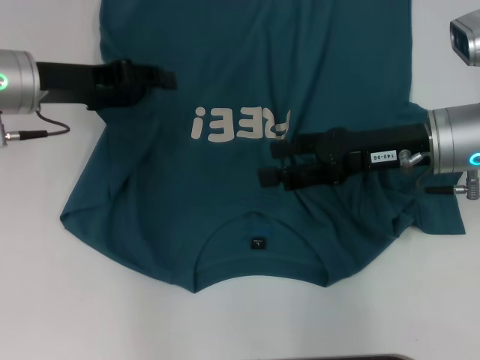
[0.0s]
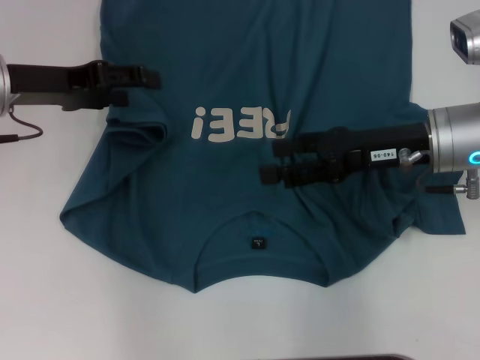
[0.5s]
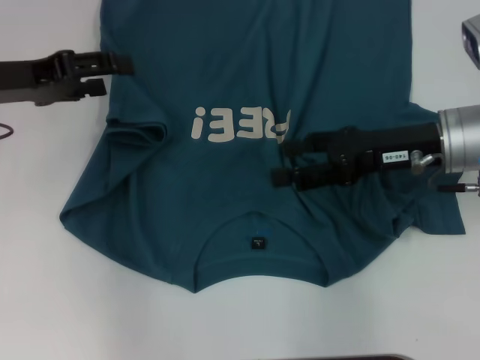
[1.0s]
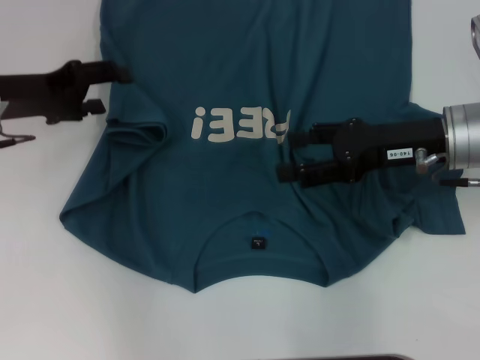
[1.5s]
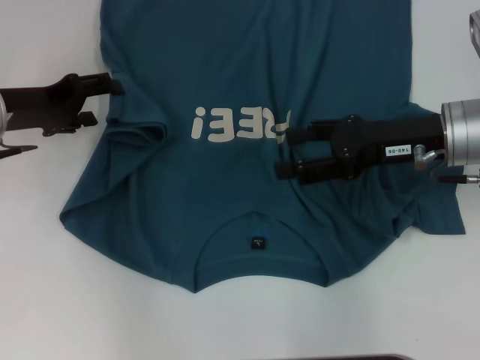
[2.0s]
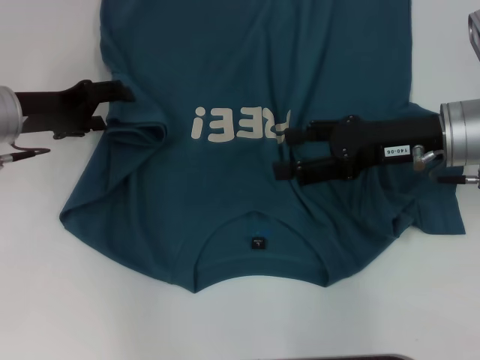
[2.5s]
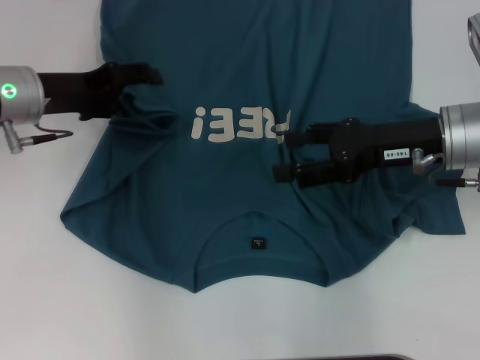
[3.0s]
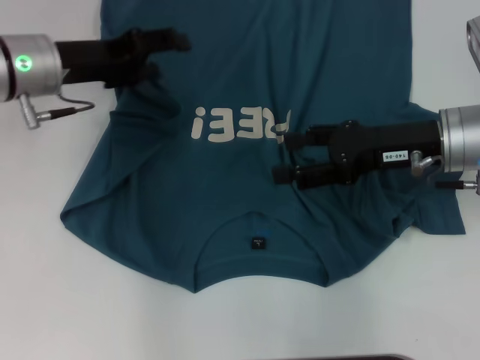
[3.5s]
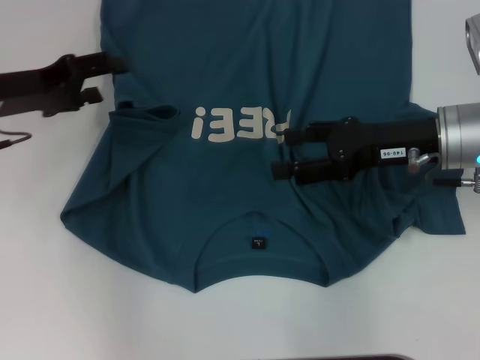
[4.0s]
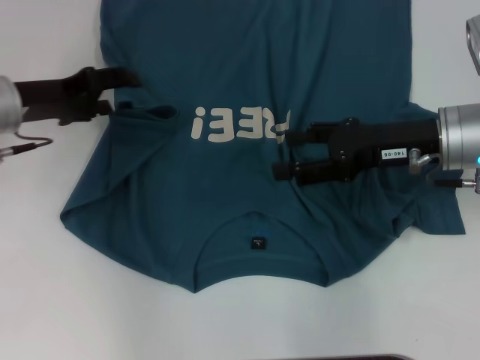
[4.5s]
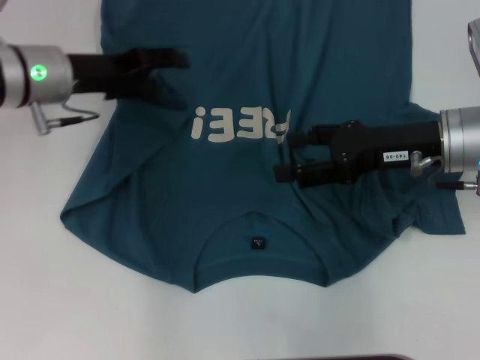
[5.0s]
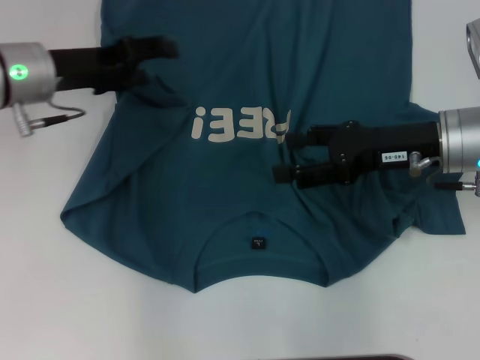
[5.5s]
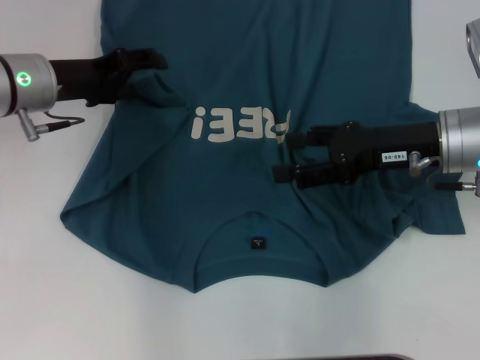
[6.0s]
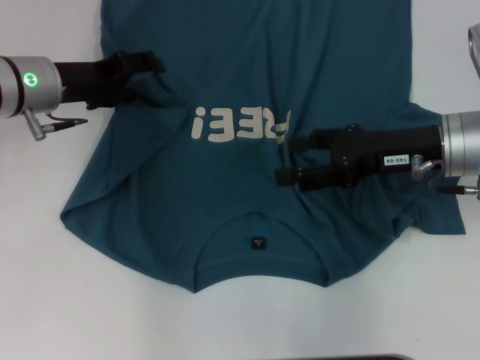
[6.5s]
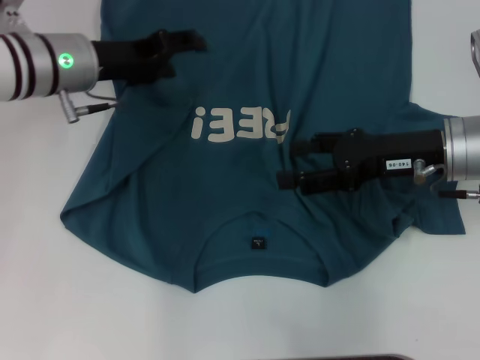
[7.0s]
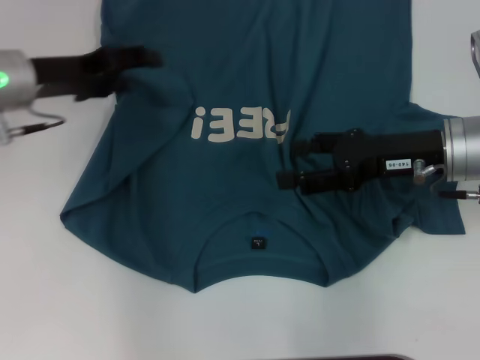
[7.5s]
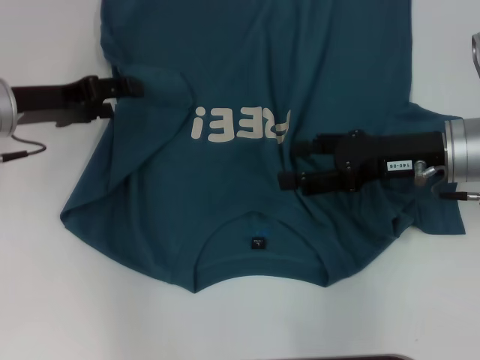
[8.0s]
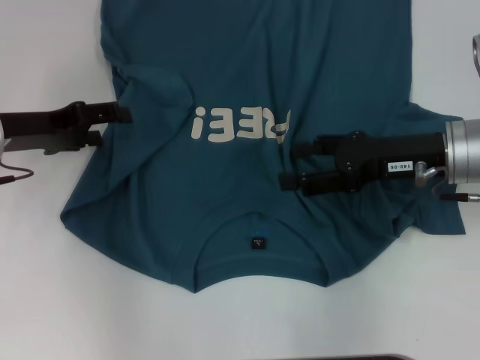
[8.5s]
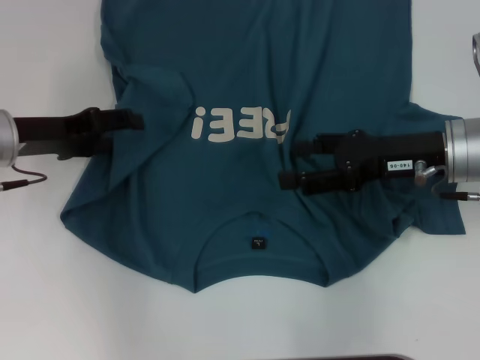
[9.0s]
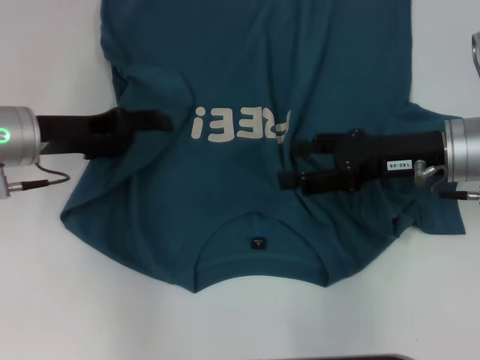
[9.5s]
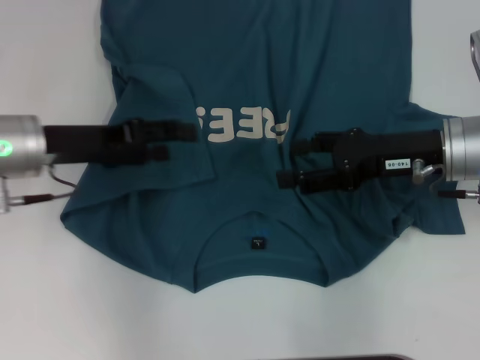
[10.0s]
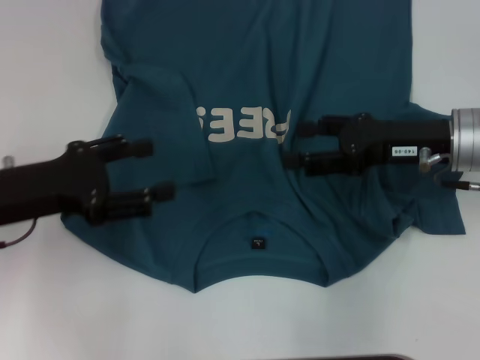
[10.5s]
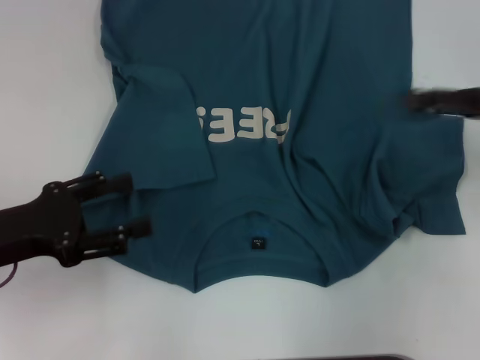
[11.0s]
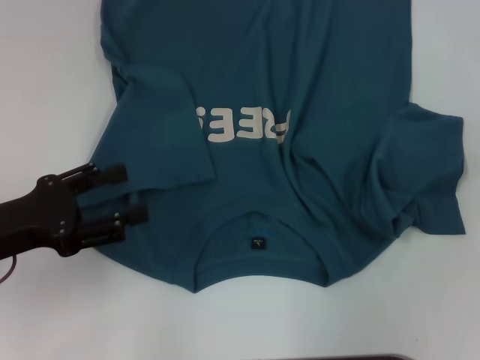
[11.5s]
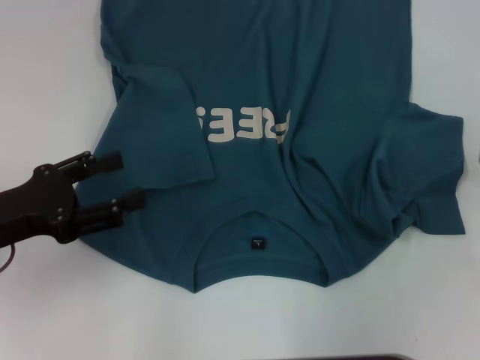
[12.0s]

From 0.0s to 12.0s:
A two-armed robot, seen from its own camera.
Step, from 0.0s to 9.5s: Fold the bottom left sleeve with your left hand.
From 0.0s to 2.0s: The left gripper changes place by about 5 cm, and opens up.
From 4.0s to 6.0s: The left gripper travels to the right by about 5 cm.
From 6.0s to 8.0s: The grippers move only a little.
From 8.0s to 10.0s: The grippers stay close to where they were, moving slightly.
From 10.0s to 12.0s: The left gripper heads backward and to the left, covering some 10 cm; the right gripper is displaced to the right by approximately 20 cm.

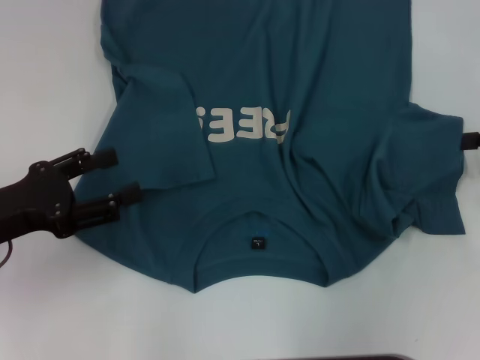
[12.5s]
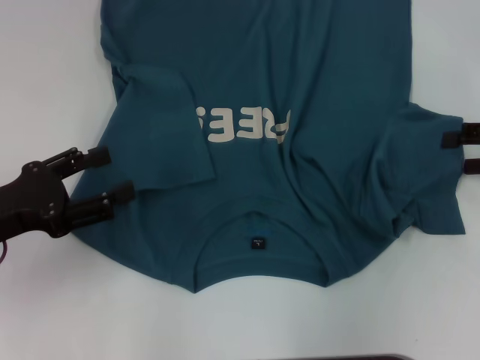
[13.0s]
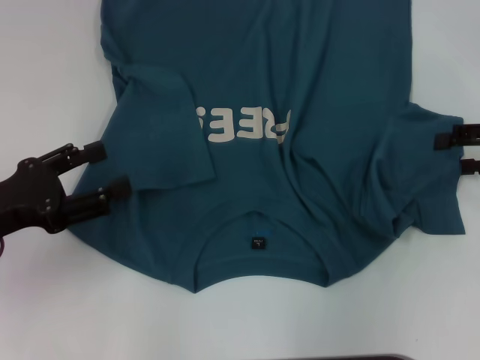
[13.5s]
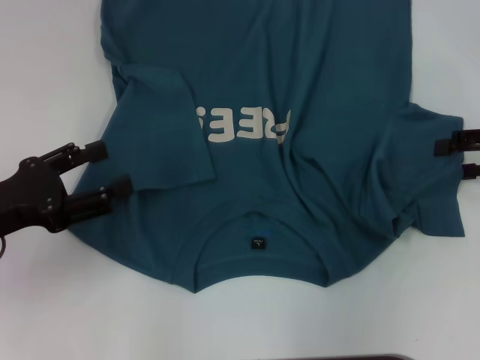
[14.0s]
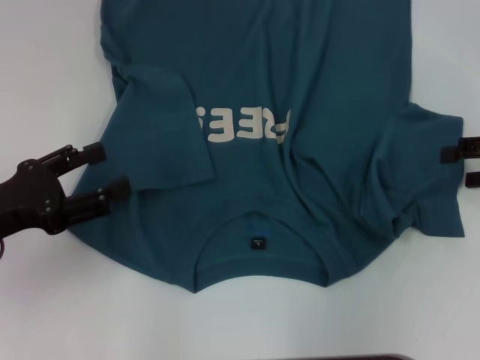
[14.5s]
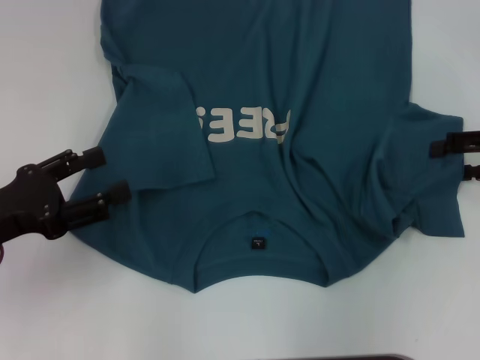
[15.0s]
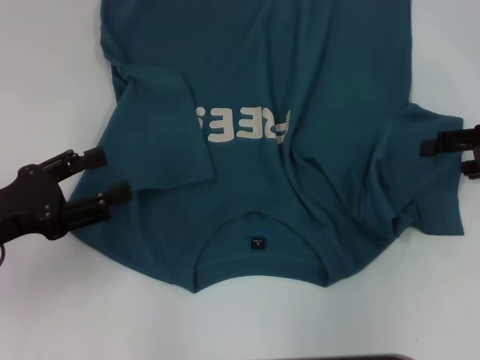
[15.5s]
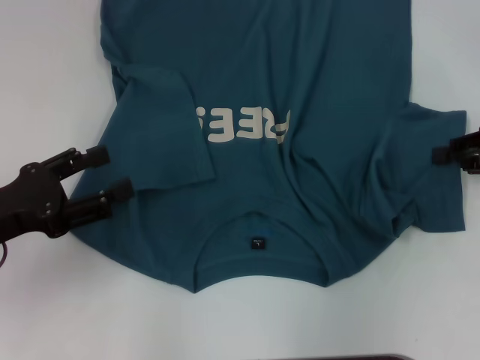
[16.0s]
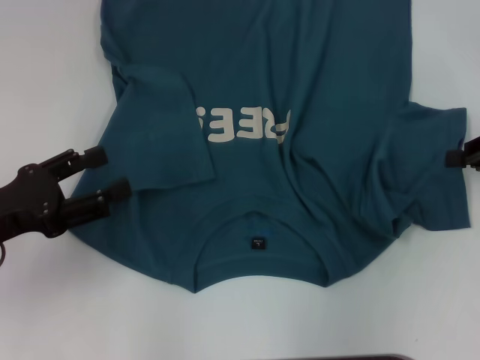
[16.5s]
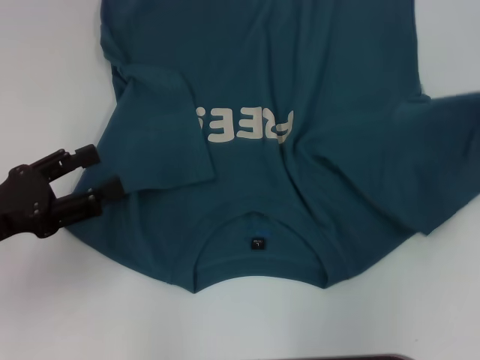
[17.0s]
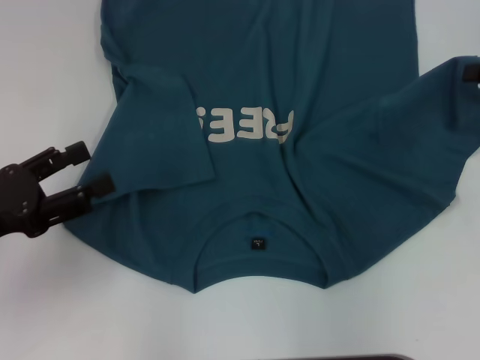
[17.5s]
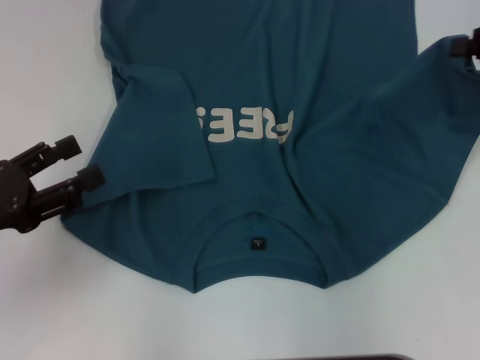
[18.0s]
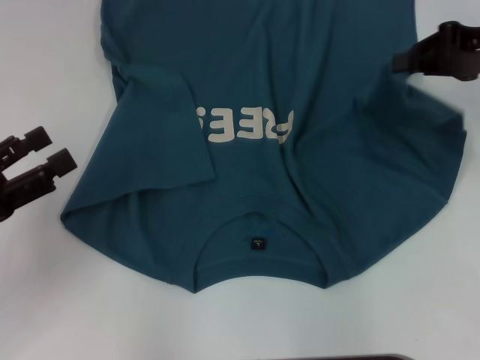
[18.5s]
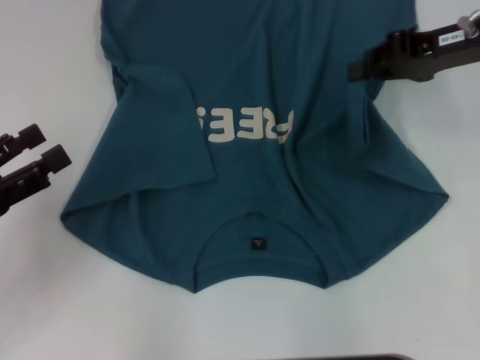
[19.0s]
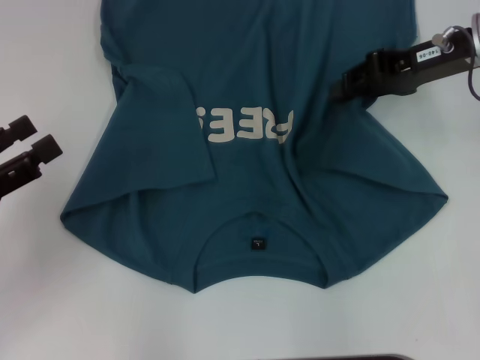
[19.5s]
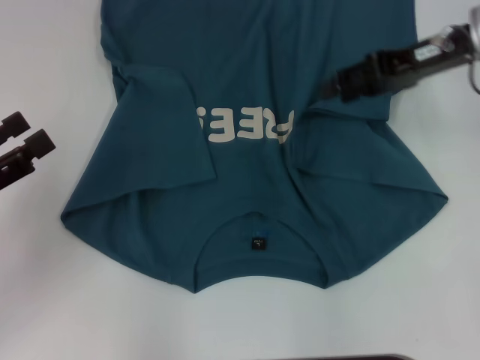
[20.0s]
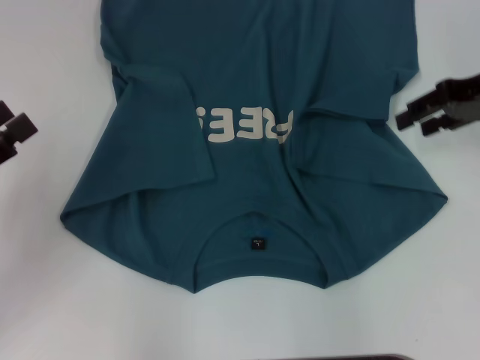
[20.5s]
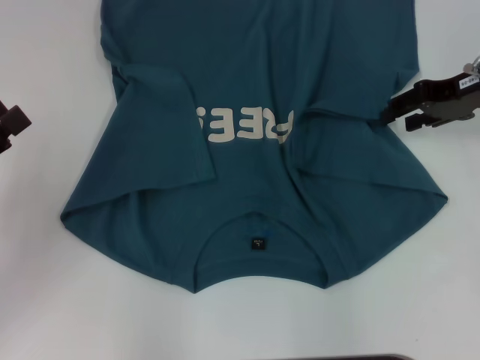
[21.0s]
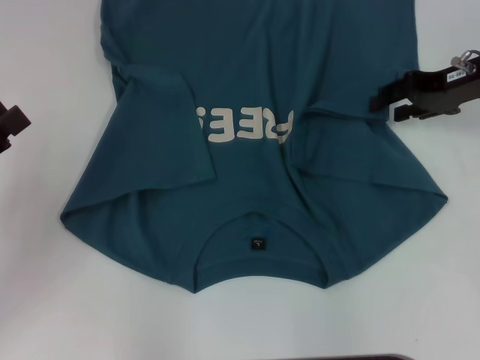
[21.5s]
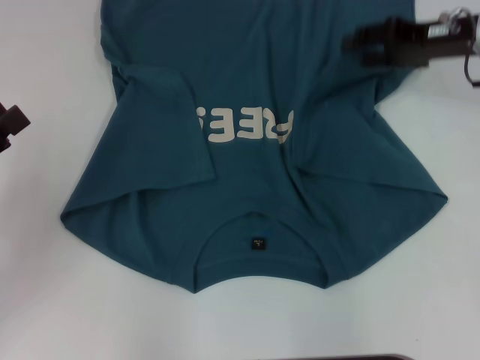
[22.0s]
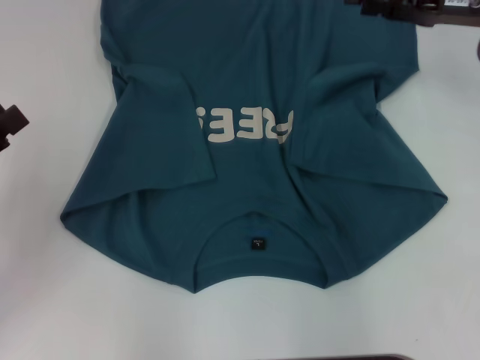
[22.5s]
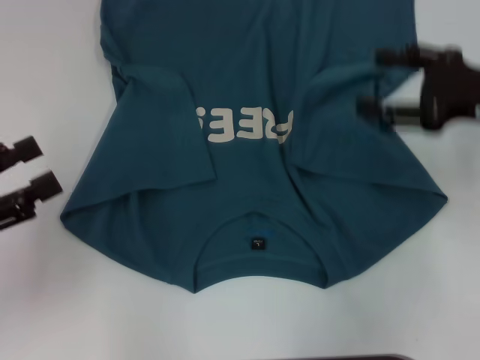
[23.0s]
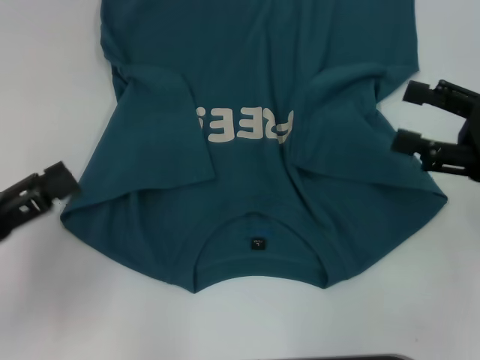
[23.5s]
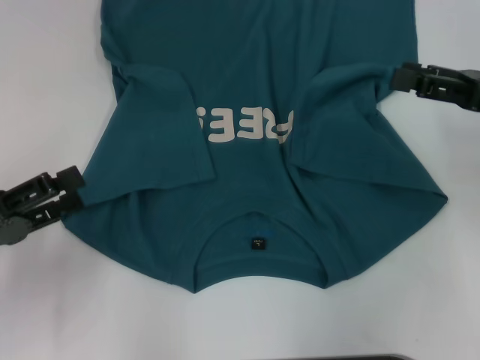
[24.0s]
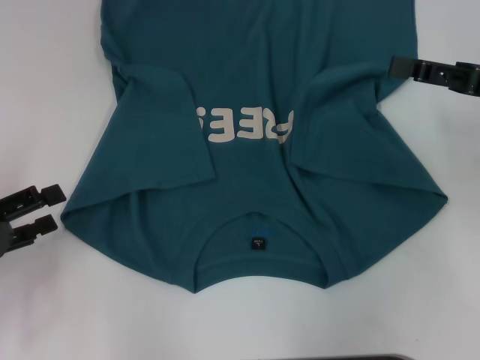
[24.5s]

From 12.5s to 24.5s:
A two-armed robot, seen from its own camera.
Step, from 12.5s to 22.0s: Fold the bottom right sleeve to the right.
From 12.5s to 14.5s: The grippers make only small movements.
From 14.5s to 16.5s: The right gripper closes its fingers.
From 16.5s to 18.5s: The right gripper is displaced upward, forward and to the left by about 10 cm.
From 18.5s to 20.5s: The right gripper opens up.
From 22.5s to 24.5s: The right gripper is displaced backward by about 10 cm.

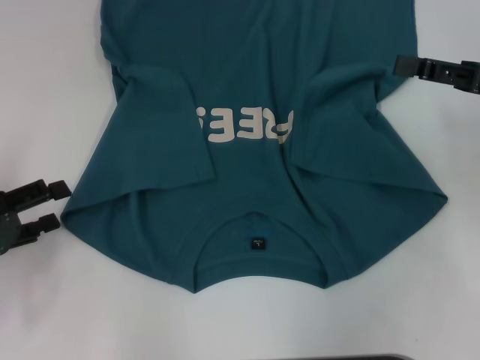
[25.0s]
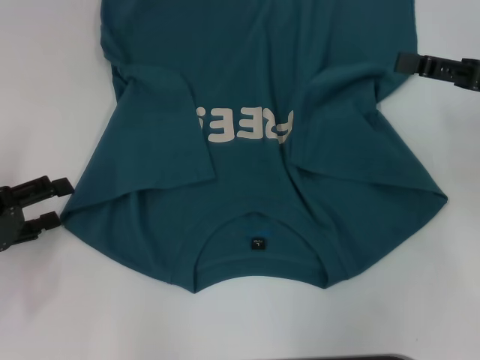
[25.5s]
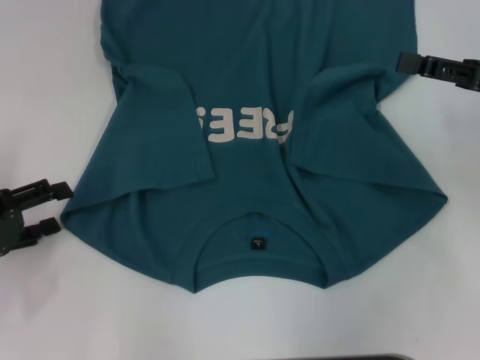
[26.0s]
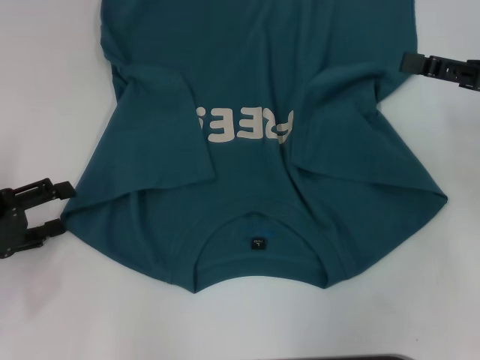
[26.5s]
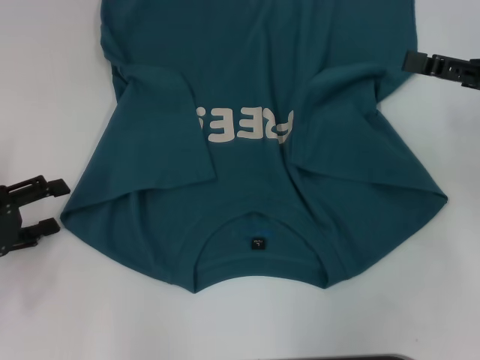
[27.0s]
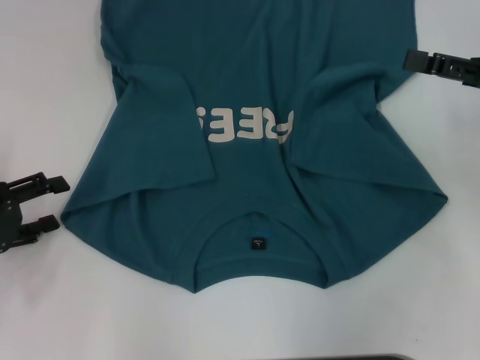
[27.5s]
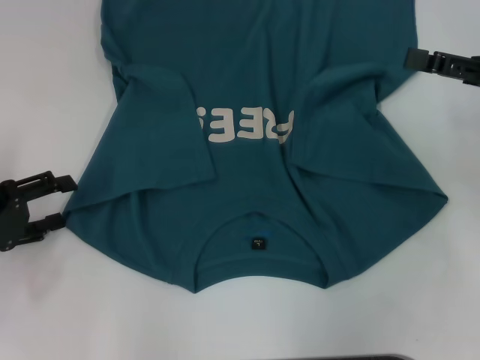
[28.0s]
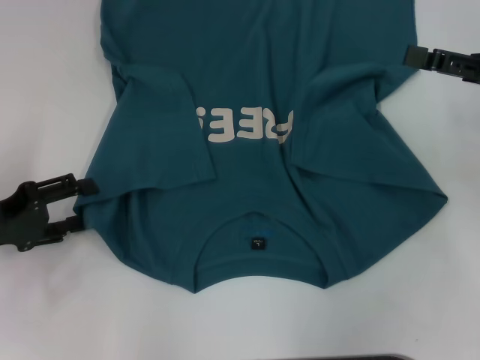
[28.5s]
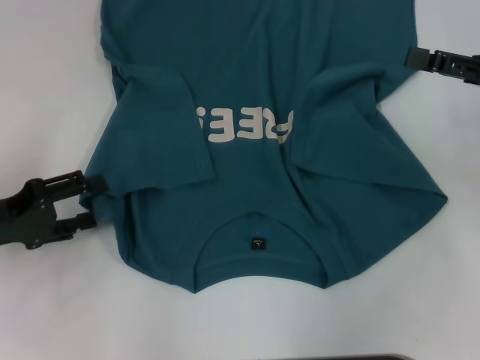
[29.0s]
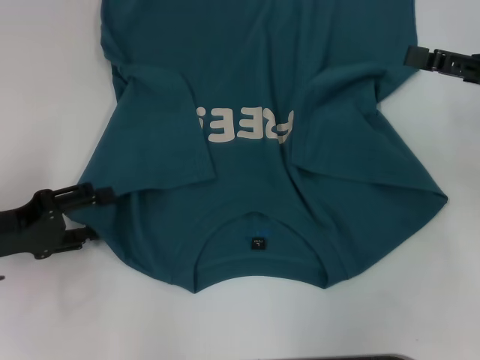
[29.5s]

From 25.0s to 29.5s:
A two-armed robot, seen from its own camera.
From 25.0s to 29.5s: The grippers make only small movements.
